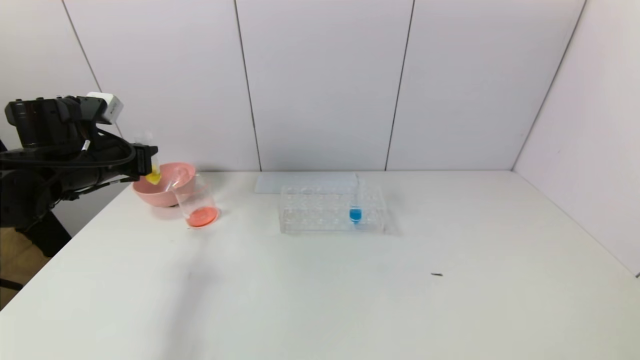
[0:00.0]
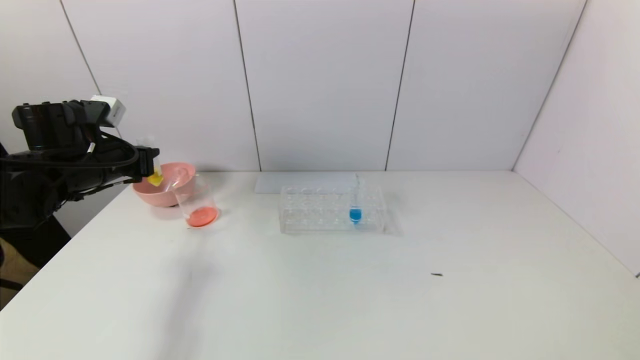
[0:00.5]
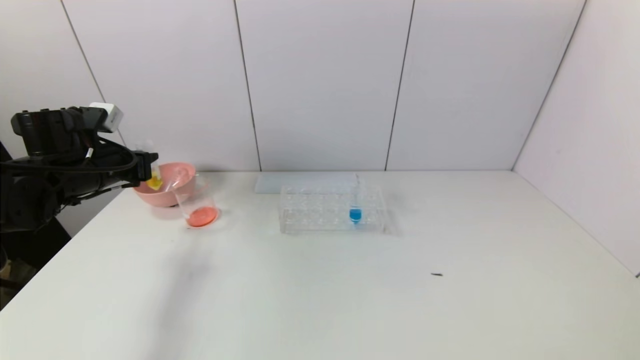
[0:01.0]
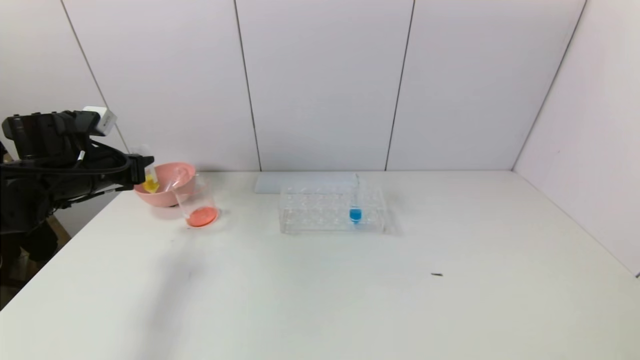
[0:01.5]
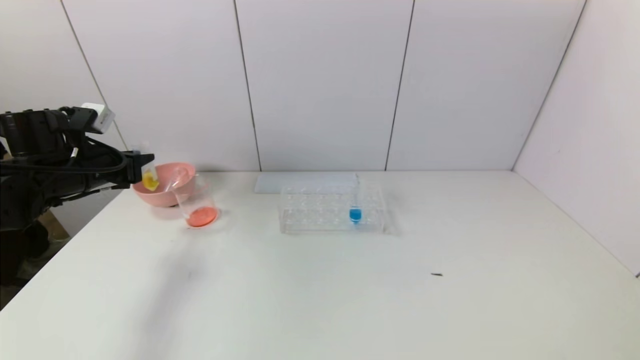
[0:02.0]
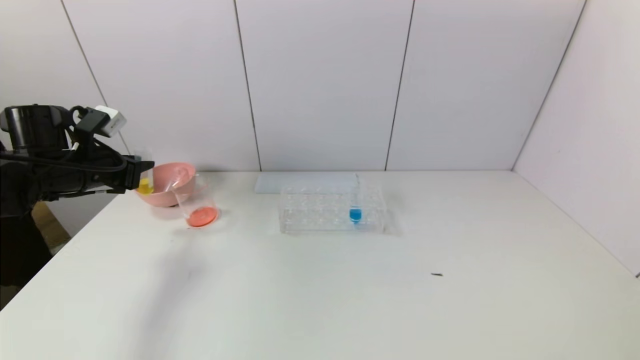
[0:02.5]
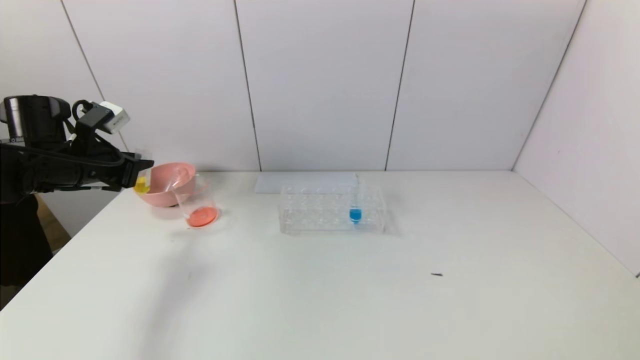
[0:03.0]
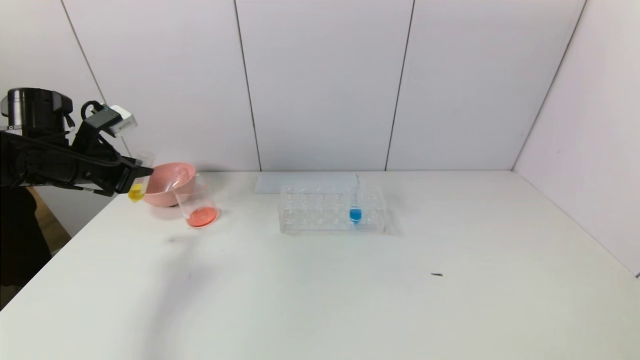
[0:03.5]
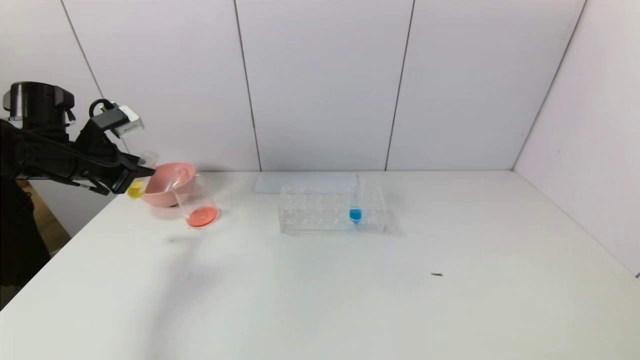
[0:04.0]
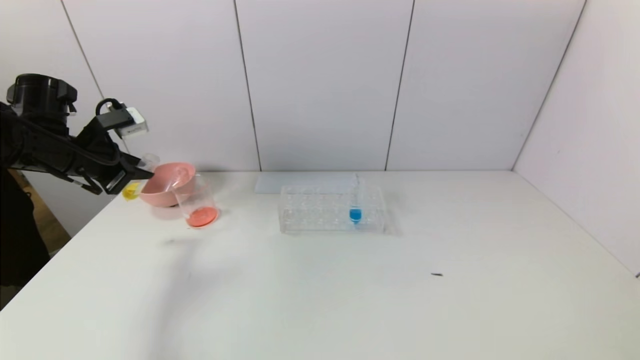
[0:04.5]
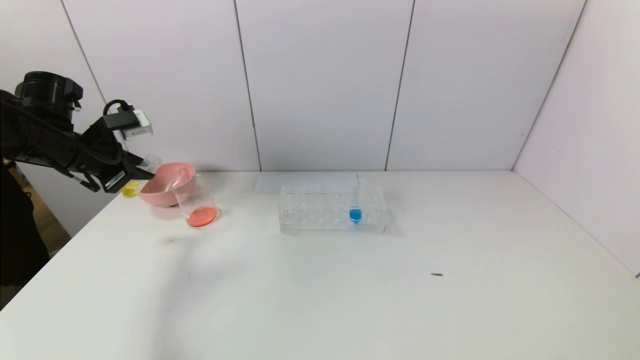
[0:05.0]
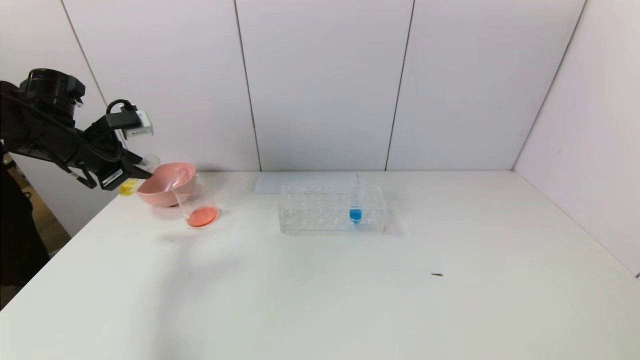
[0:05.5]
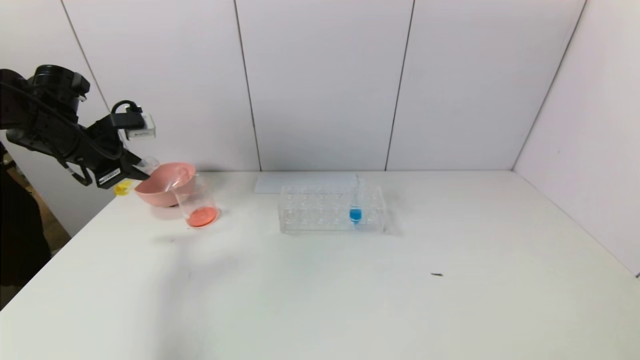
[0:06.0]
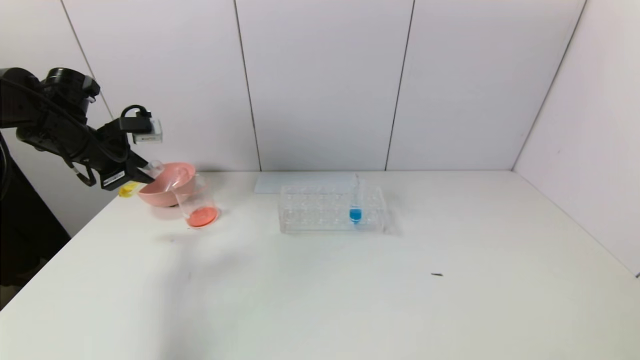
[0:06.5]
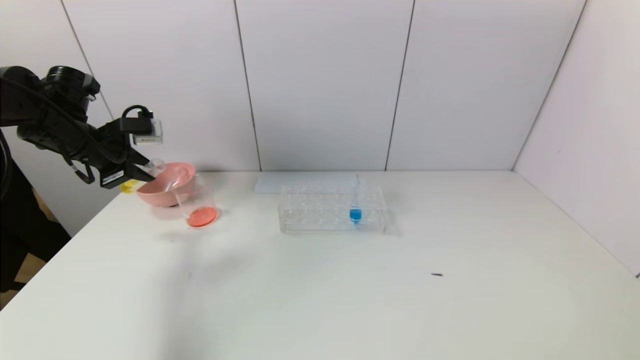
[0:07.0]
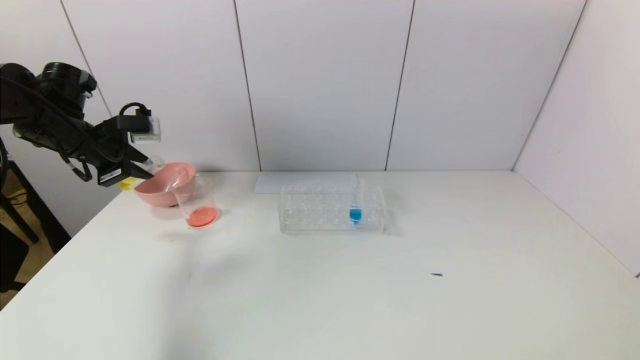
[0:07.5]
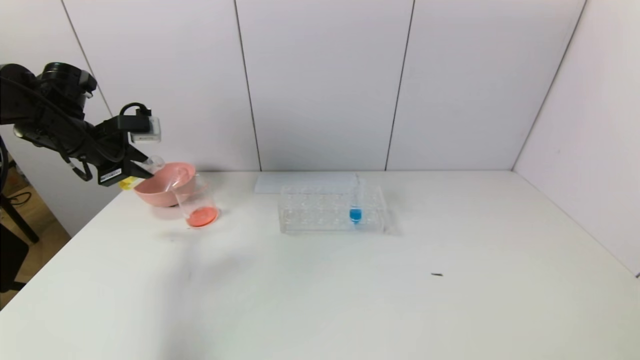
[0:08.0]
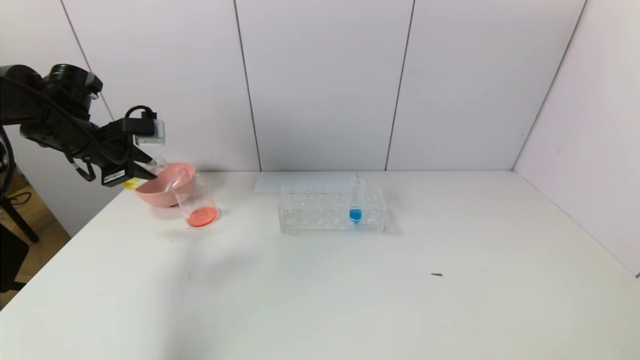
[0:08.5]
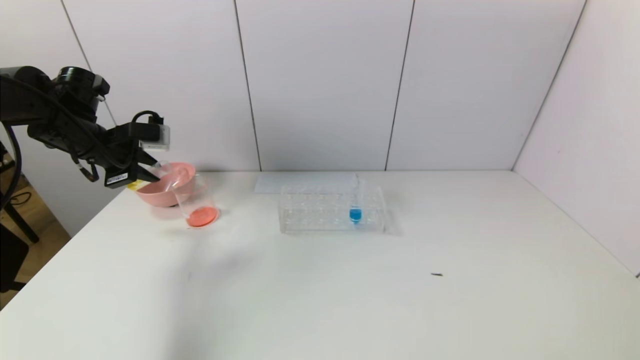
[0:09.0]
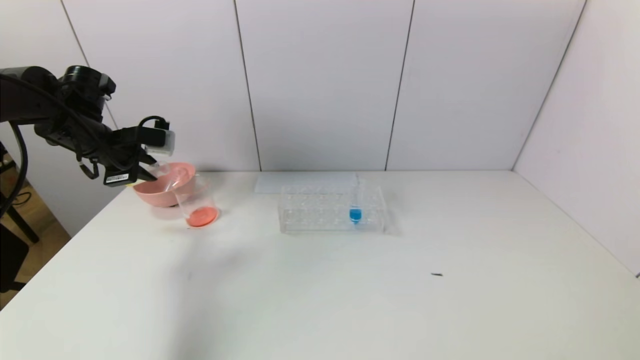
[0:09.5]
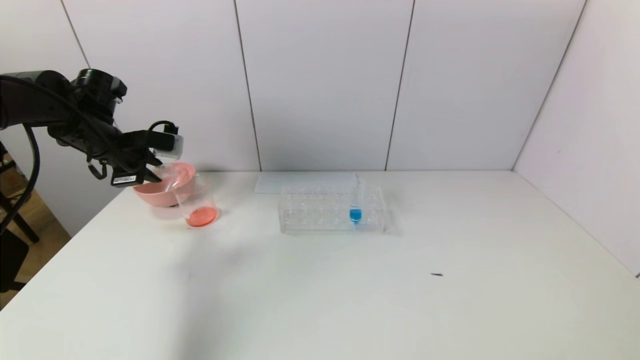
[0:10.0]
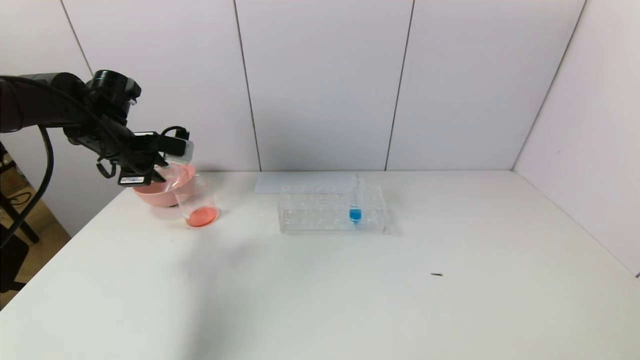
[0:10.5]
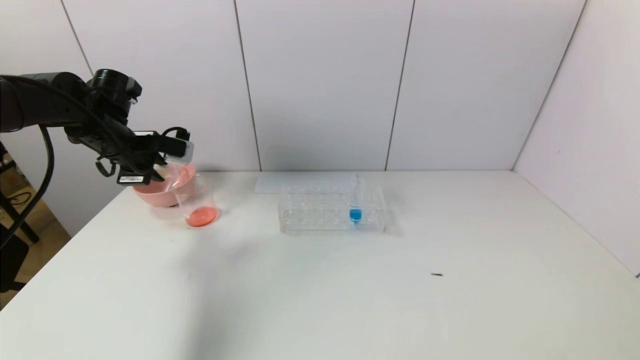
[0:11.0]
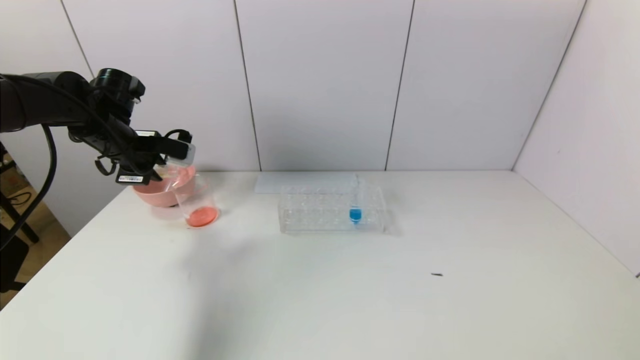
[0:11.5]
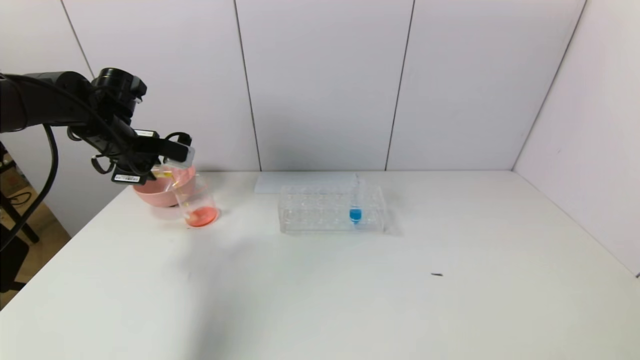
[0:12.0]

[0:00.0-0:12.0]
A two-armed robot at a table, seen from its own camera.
Task of the whole recording: pick up the test tube with yellow pigment and the test tube with red pigment by grippers and pour them into the beaker.
0.0 to 2.0 s: The grippers make only small movements.
6.0 to 8.0 s: The grippers make only small movements.
8.0 to 10.0 s: The grippers move only a little.
10.0 to 12.0 s: There are only small adjustments of the grippers.

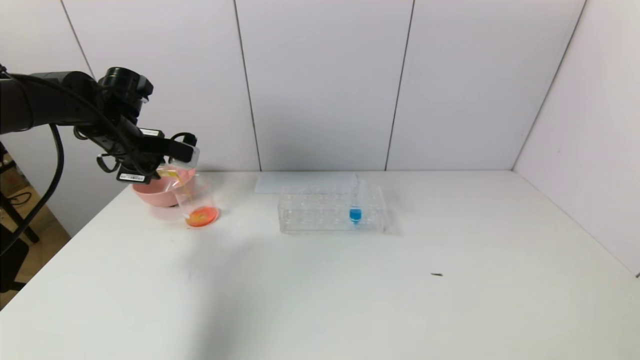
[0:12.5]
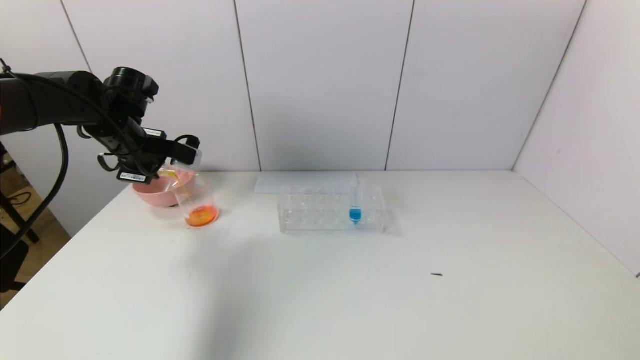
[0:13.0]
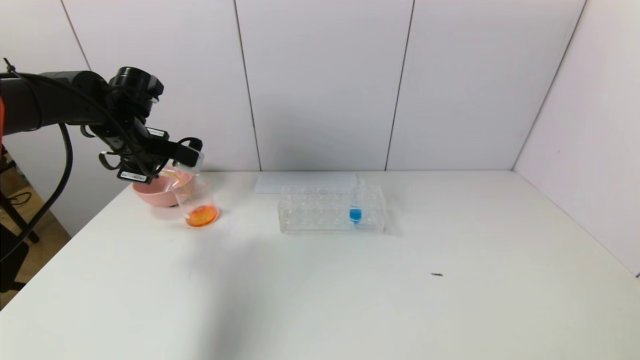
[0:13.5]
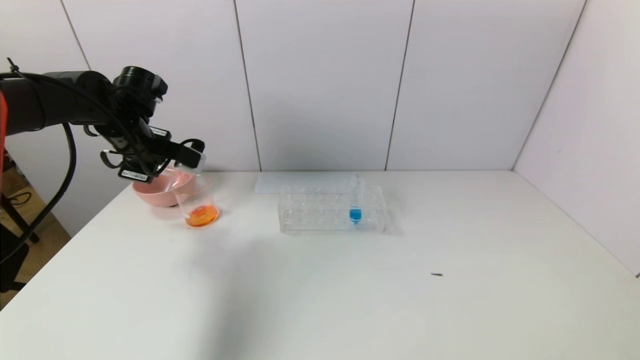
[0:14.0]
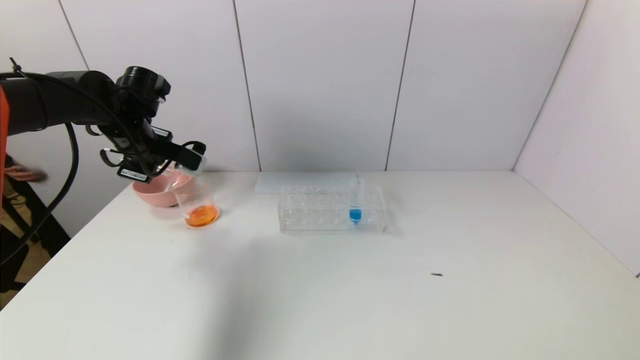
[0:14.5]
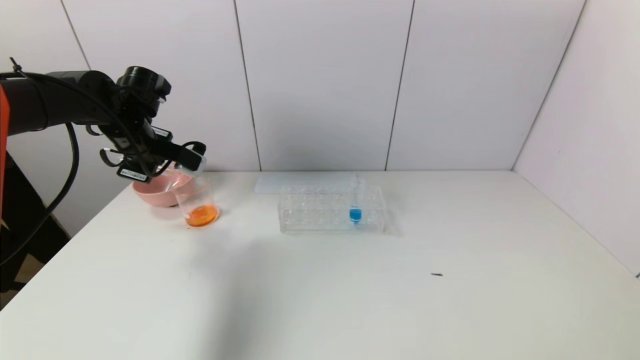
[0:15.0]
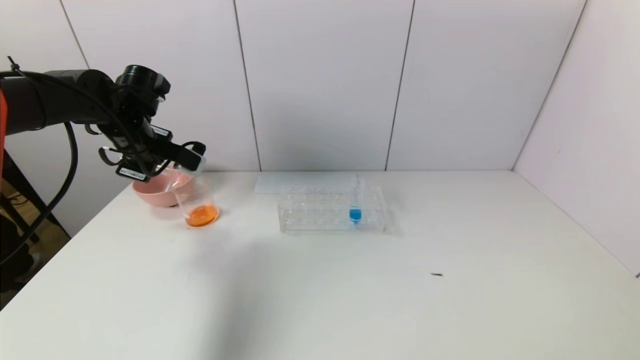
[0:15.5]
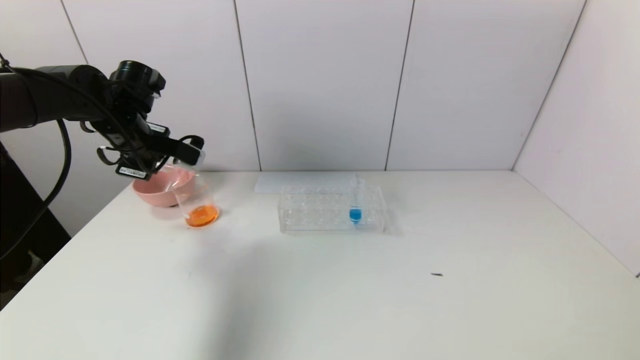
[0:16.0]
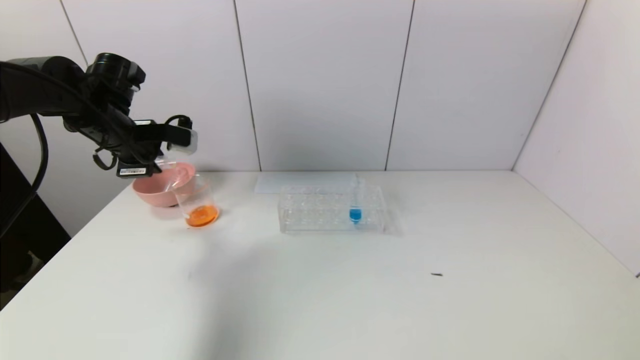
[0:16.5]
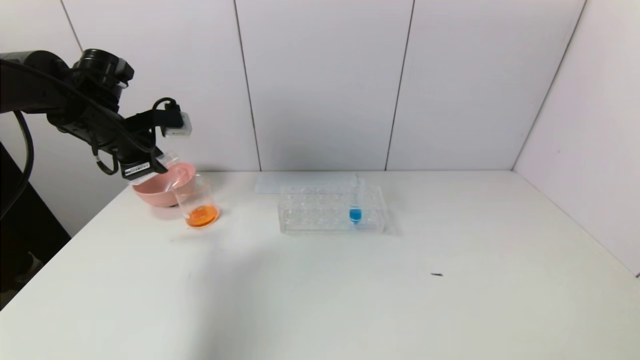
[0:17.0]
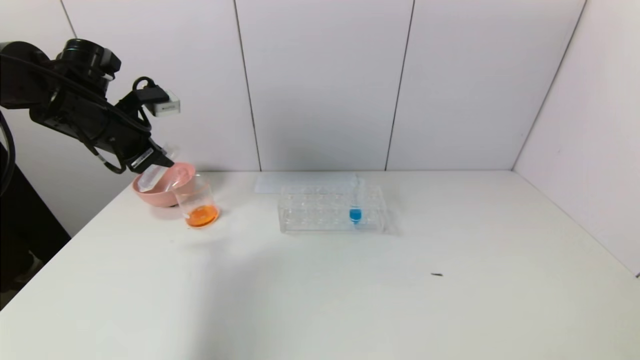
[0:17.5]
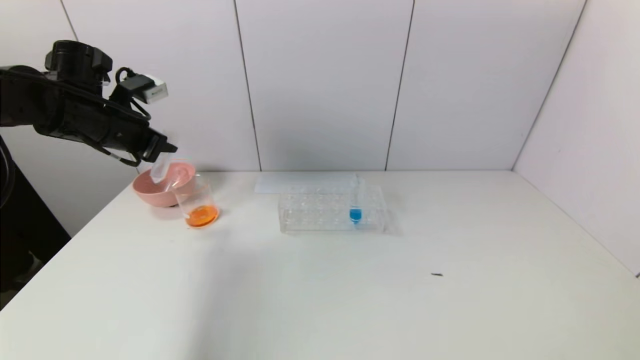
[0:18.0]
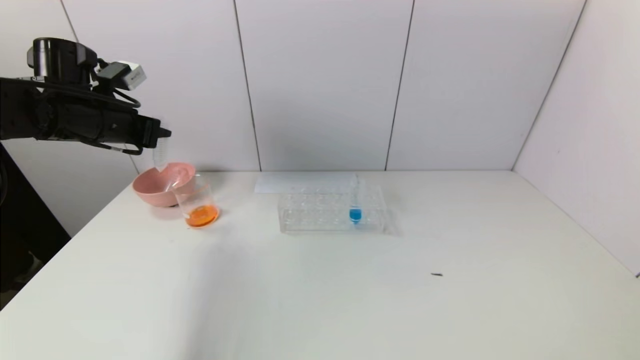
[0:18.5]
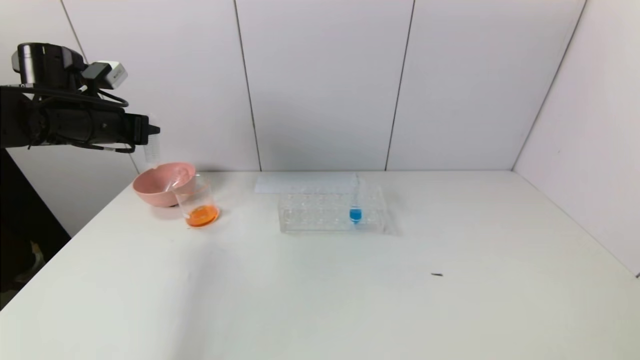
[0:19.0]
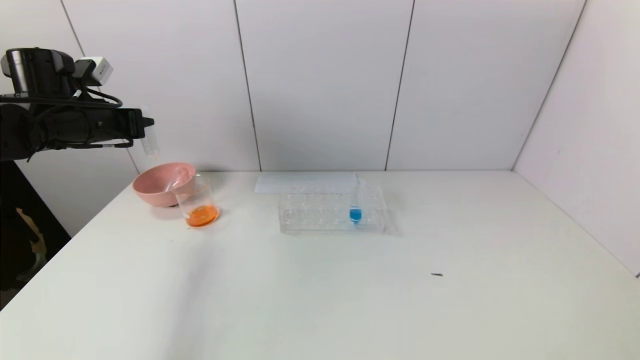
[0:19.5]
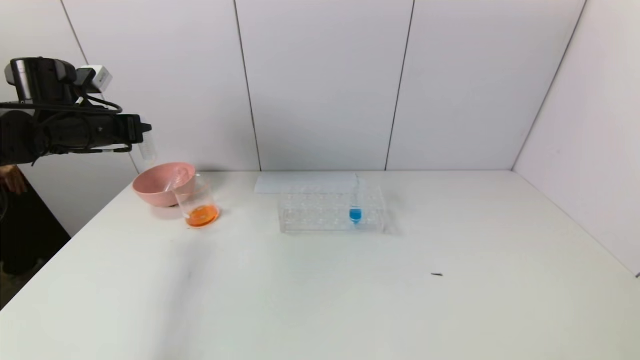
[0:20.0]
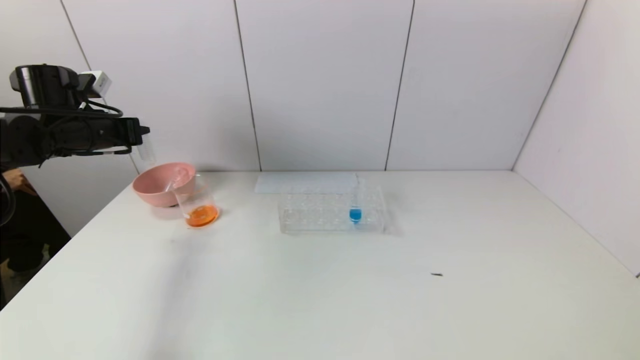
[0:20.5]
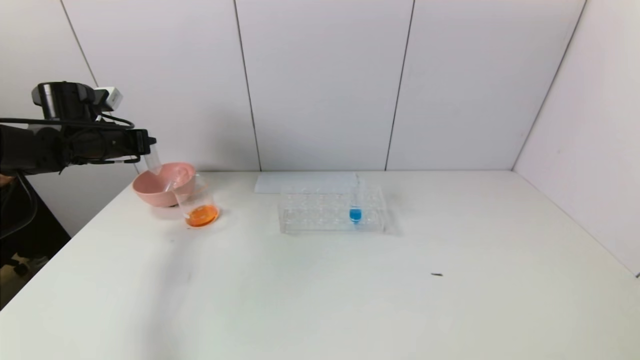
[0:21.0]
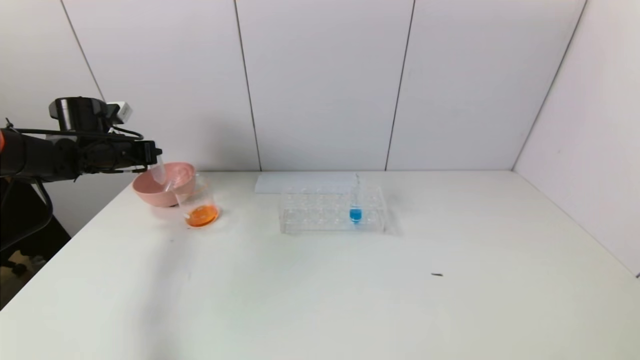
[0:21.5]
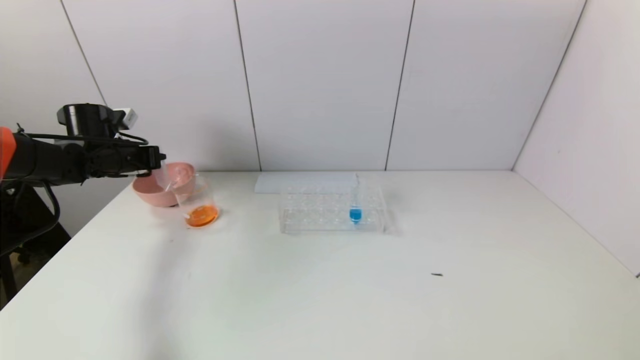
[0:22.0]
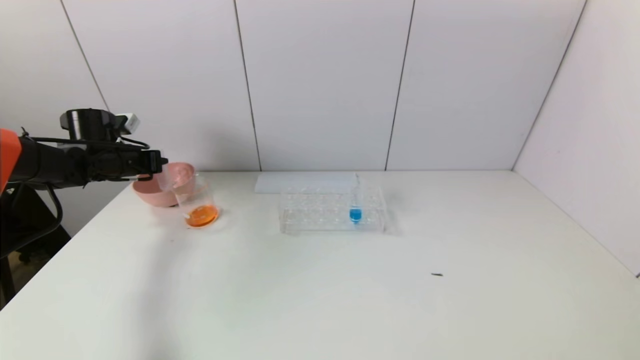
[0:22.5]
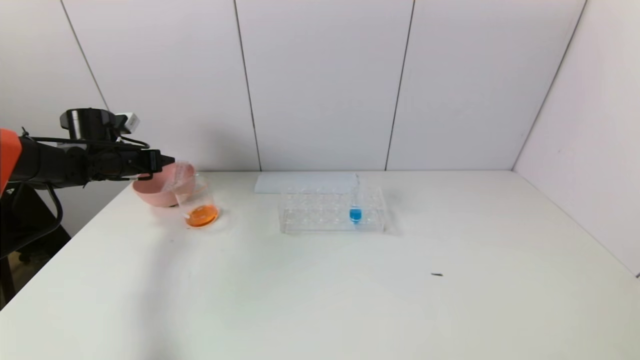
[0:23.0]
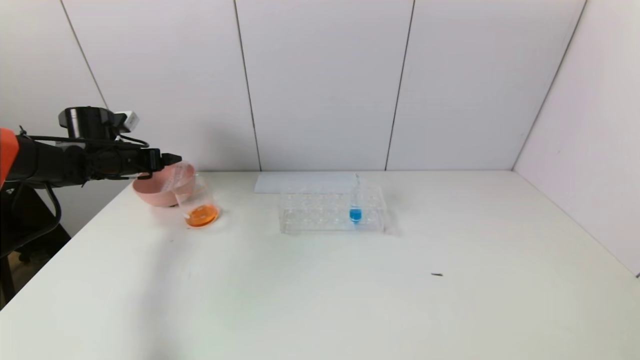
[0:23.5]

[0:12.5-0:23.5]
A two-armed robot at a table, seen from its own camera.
Task of the whole recording: pick up the test tube with yellow pigment and the test tube with red pigment by grippers and pour them into the beaker.
Step, 12.5 to 16.0 s: Pour the yellow reagent into the graduated cylinder with the left gripper.
Step, 16.5 to 23.0 s: Place the test tube into the pink bowl with the left gripper.
12.5 to 14.5 s: The grippers move only a little.
14.5 to 16.0 s: The two grippers keep their place.
18.0 to 20.0 s: The left gripper moves some 5 cm.
20.0 to 21.5 s: The left gripper travels downward and forward by about 10 cm.
21.5 to 23.5 s: The left gripper opens its fingers.
